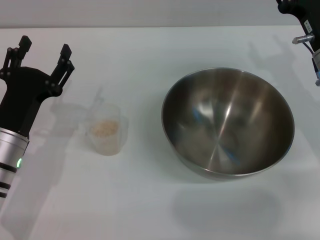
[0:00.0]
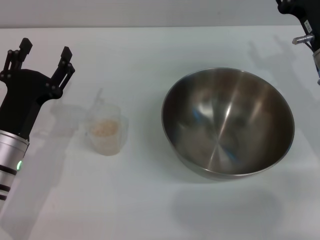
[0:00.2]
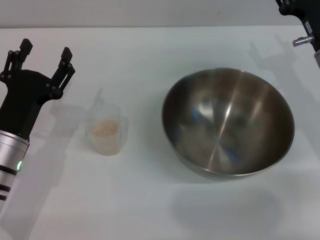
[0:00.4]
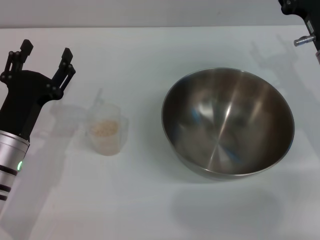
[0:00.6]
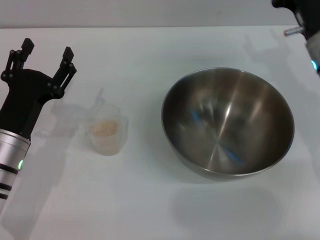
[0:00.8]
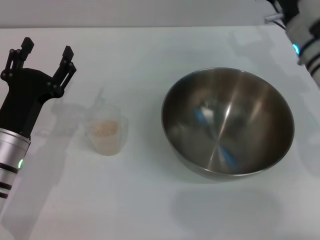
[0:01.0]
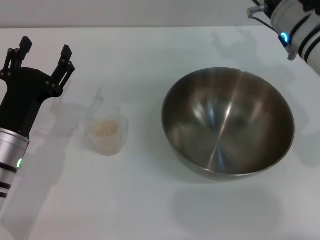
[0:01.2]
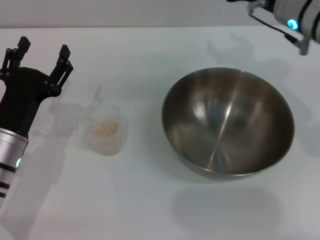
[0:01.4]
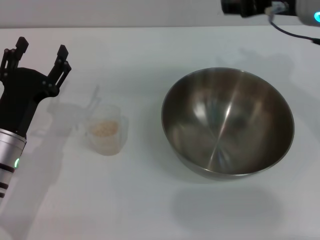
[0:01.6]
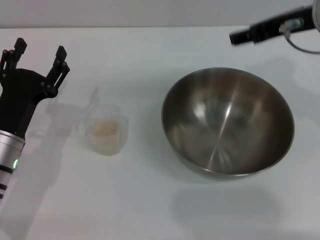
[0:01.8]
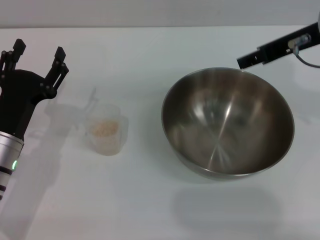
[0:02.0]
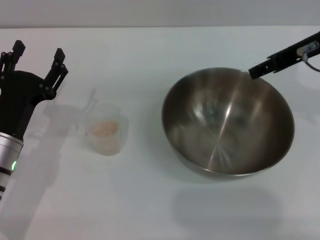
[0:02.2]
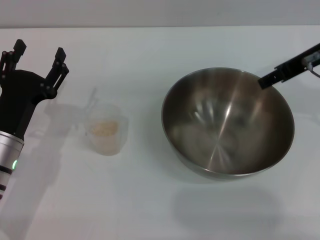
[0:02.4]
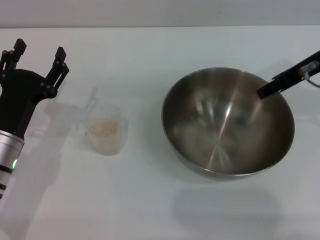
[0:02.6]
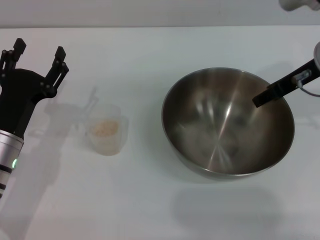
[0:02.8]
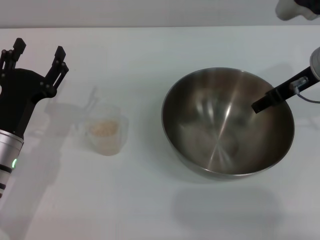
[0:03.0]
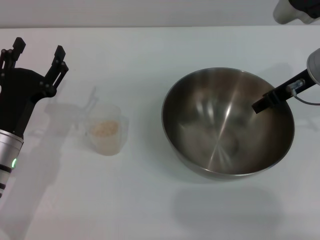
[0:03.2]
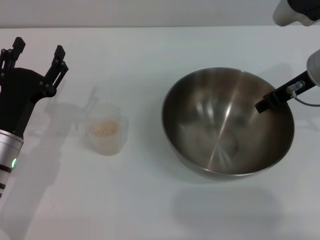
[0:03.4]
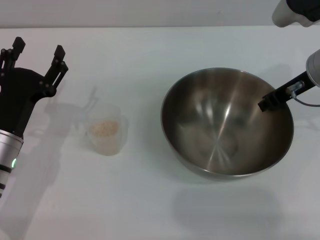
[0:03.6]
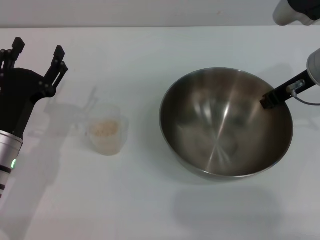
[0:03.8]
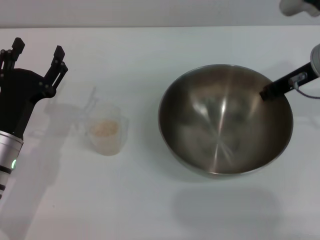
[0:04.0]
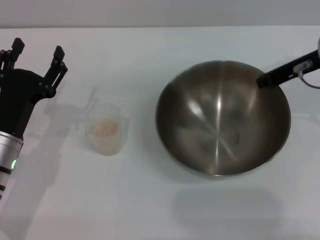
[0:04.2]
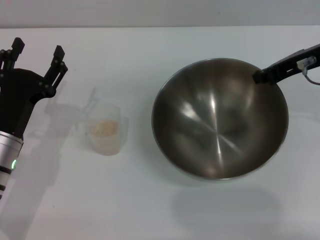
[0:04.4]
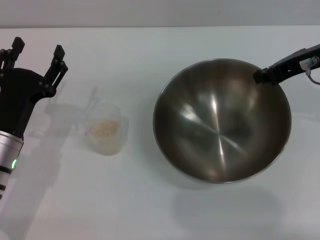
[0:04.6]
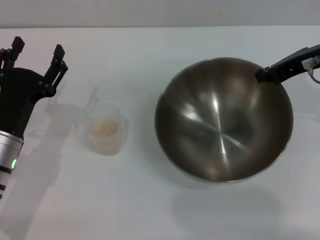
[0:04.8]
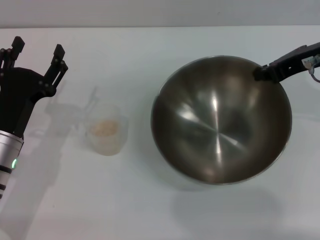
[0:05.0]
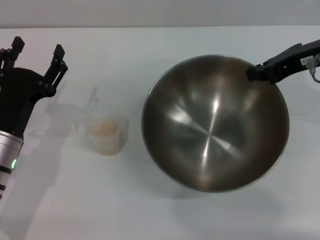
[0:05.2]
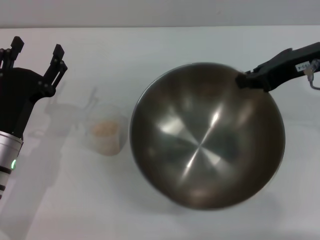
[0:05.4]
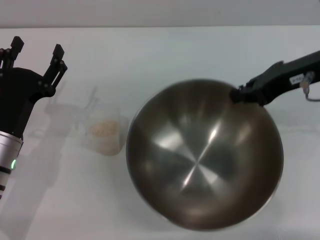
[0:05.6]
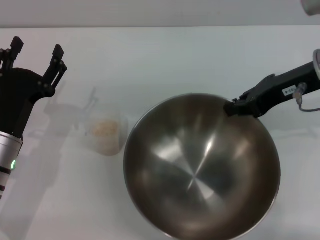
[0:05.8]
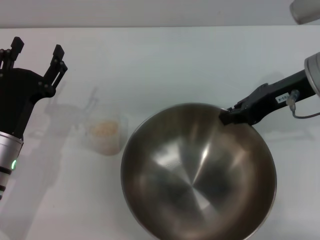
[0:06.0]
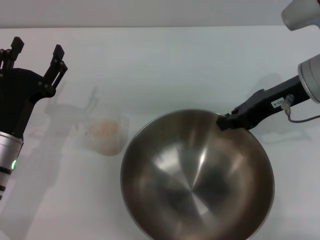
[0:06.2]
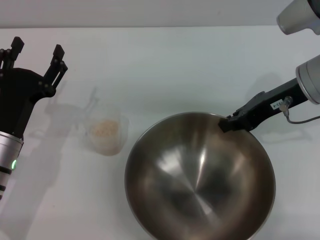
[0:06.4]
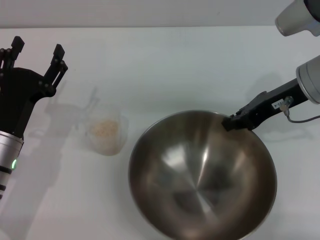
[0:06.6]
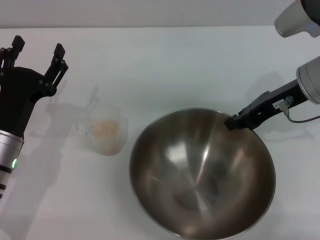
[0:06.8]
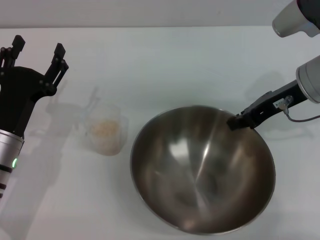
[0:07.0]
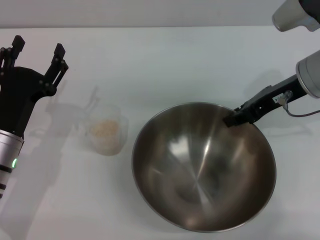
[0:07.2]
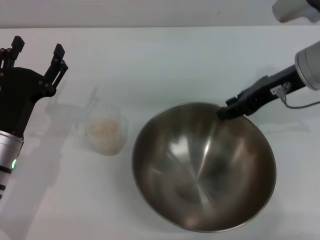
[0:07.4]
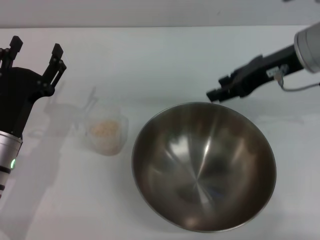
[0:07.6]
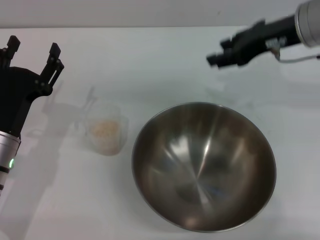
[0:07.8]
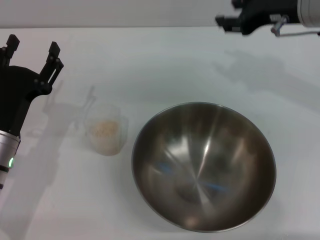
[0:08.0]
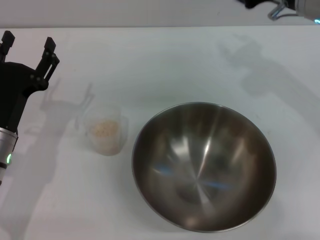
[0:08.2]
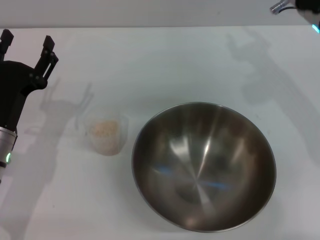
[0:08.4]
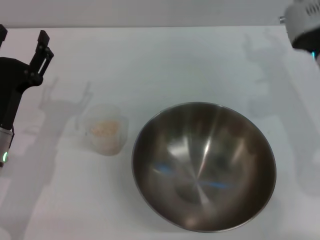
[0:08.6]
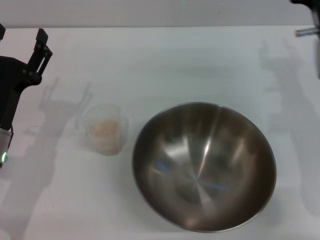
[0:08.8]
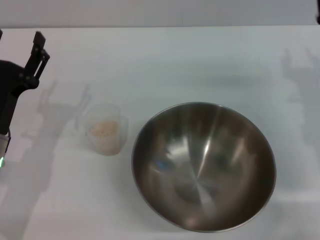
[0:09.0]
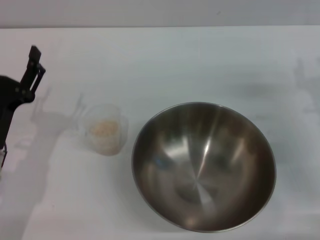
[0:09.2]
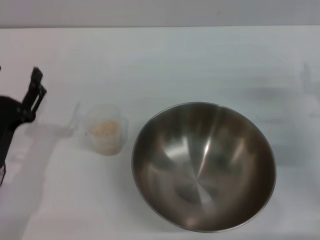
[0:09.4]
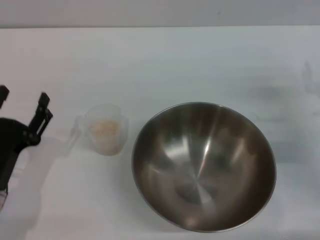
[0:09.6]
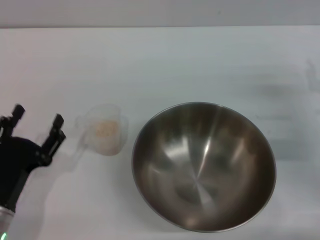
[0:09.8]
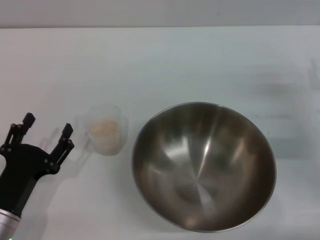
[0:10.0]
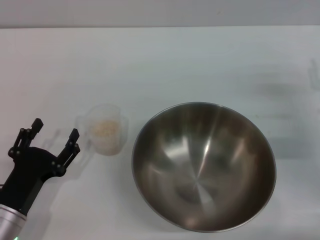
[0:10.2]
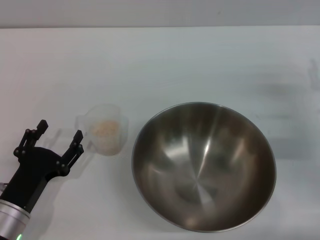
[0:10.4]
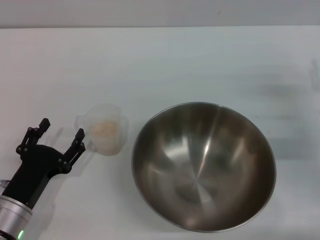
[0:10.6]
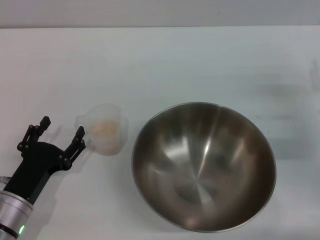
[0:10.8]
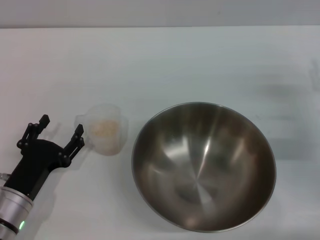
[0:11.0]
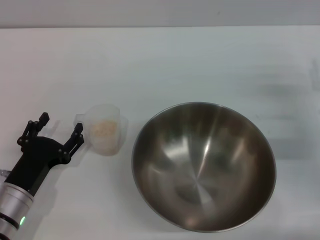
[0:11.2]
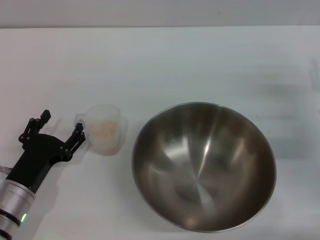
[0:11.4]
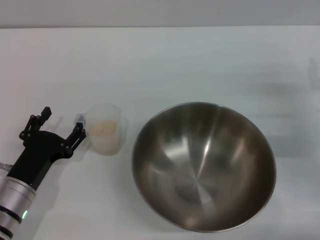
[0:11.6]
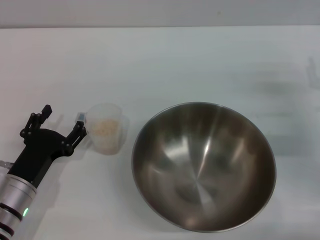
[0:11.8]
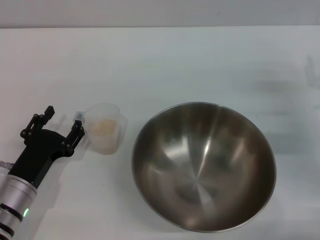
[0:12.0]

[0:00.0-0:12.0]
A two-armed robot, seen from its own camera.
Task of the whole recording: Place the bowl in the middle of the table with one hand and pour the rice from the grain cup into it with the other hand.
Step, 0.0 to 4.6 s: Pick up the bowl with the right gripper.
Step, 5.0 to 7.8 s: Place the bowl in the center of view with the right gripper.
0.0 to 1.6 s: The right gripper goes approximately 15 cm upward.
1.6 to 3.0 s: The right gripper travels downward by roughly 5 cm.
3.0 to 4.4 s: The right gripper closes up.
6.0 to 7.6 s: The right gripper opens up.
7.6 to 9.0 s: The right gripper heads downward, to the right and backward, covering about 15 cm.
9.0 to 10.4 s: The right gripper shifts roughly 5 cm to the right, while the left gripper goes approximately 10 cm backward and downward.
10.4 to 12.0 s: The grippers make only small movements.

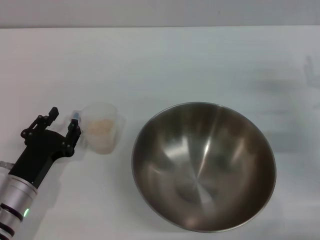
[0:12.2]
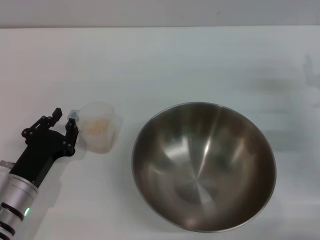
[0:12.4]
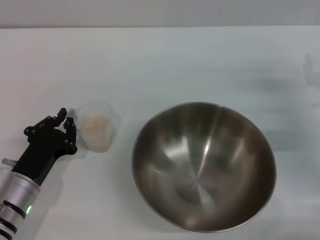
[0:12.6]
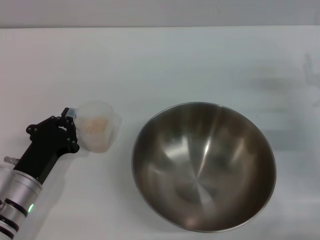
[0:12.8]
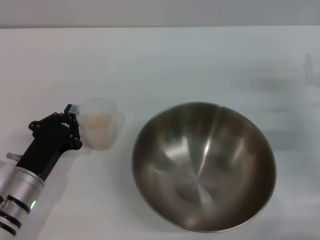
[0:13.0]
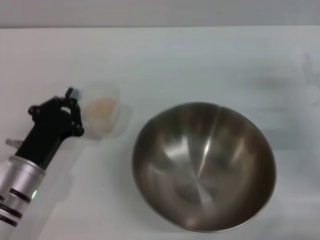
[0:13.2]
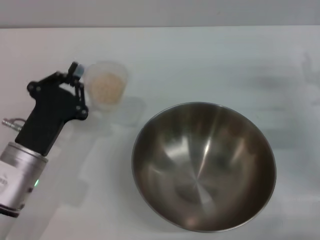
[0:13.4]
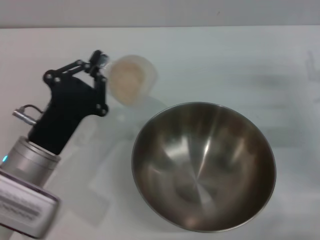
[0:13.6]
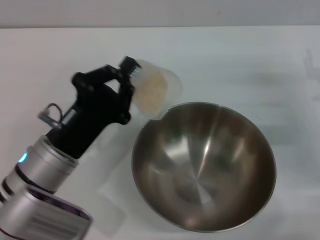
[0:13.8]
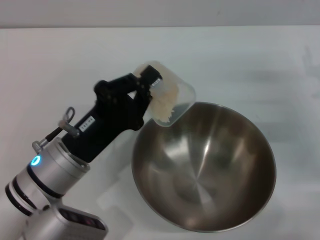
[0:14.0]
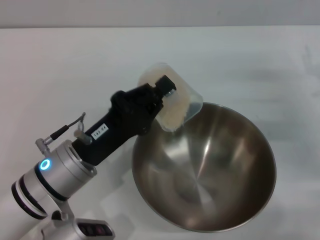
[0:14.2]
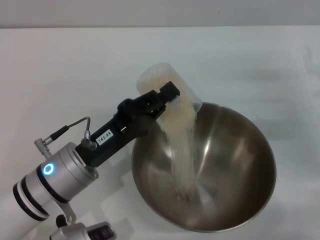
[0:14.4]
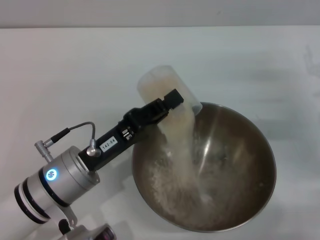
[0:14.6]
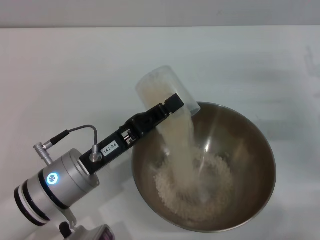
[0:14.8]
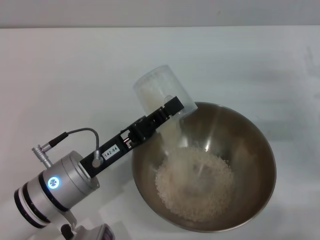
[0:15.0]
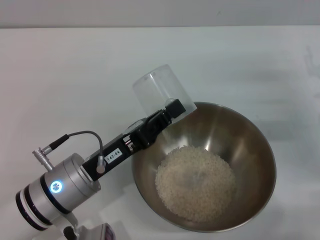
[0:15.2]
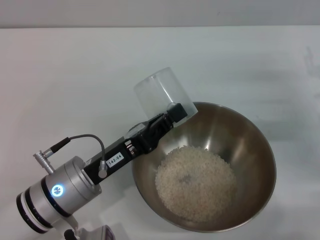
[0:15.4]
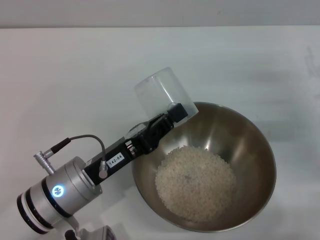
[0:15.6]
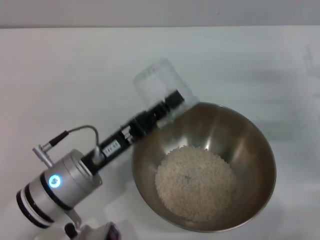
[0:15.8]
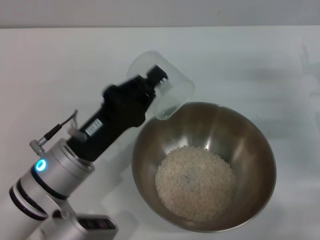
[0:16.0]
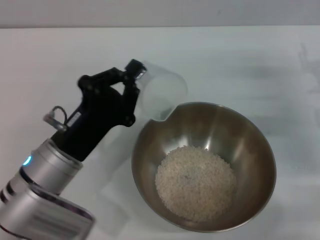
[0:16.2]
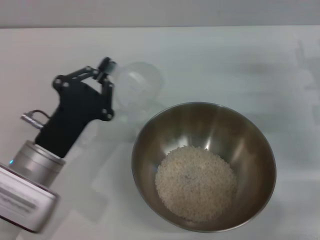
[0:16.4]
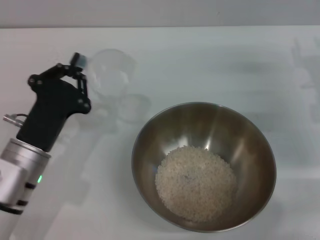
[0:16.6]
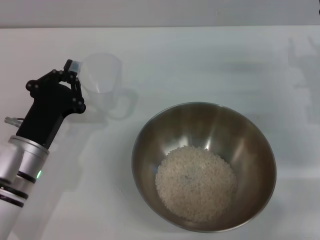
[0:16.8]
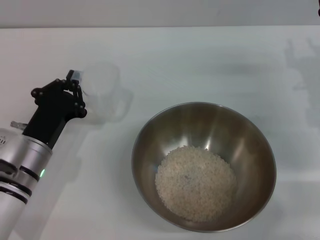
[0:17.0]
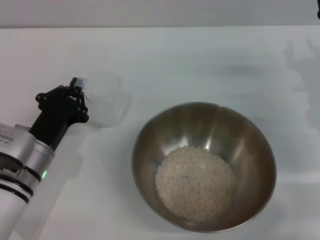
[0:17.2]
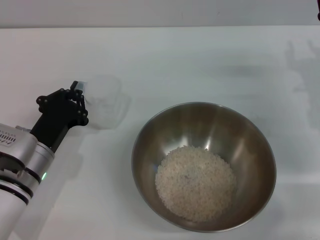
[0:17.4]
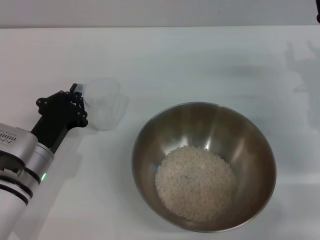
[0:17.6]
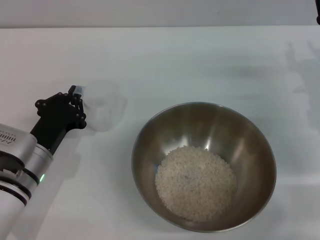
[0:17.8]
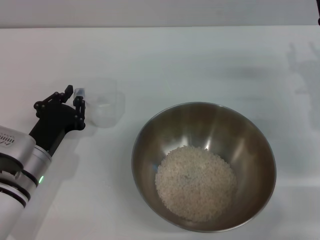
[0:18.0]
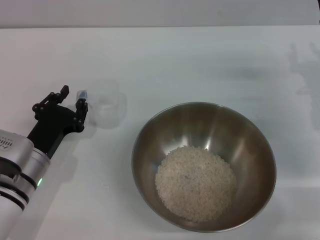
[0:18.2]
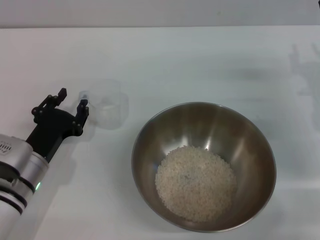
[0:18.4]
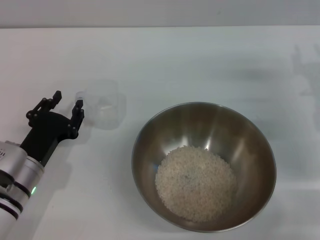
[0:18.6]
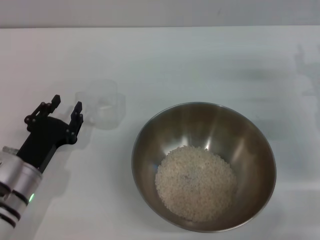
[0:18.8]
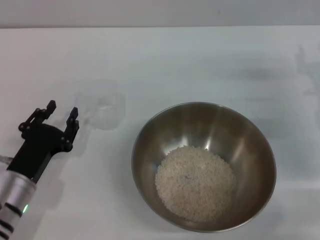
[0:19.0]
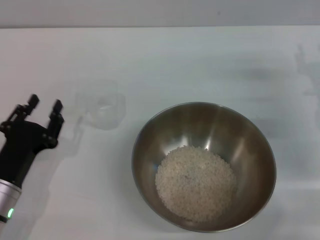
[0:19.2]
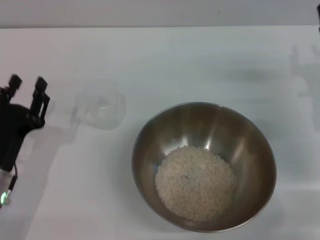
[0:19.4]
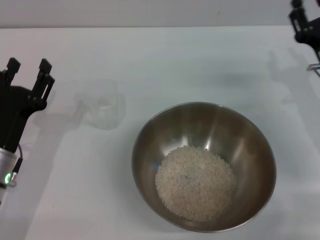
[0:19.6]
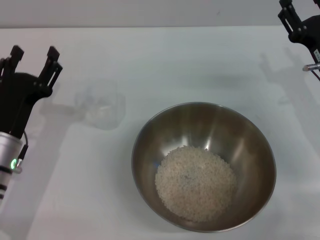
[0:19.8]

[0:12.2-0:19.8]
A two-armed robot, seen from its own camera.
Task of the whole recording: Place the bowl in the middle of the table with one hand and pour the rice from the grain cup into it with the other hand.
Step, 13.4 to 15.4 s: Pour the rice from the cup into the bowl with the left gripper.
Step, 15.6 to 18.8 s: Place the cup on the table with the left gripper.
12.2 to 13.8 s: The left gripper shifts approximately 10 cm upward and to the right, and closes up.
15.2 to 16.8 s: The left gripper moves to the left, some 5 cm.
16.8 to 18.2 s: The grippers make only small movements.
18.2 to 19.8 s: The left gripper opens its fingers.

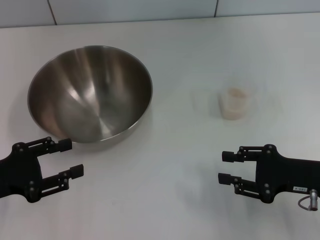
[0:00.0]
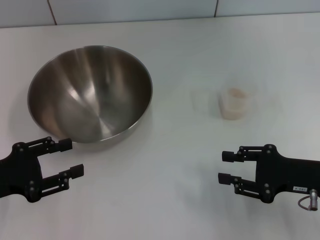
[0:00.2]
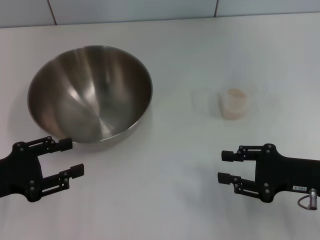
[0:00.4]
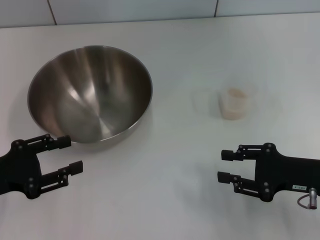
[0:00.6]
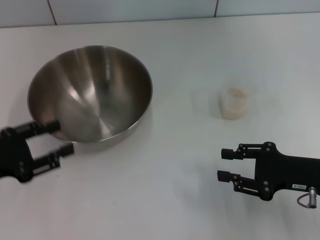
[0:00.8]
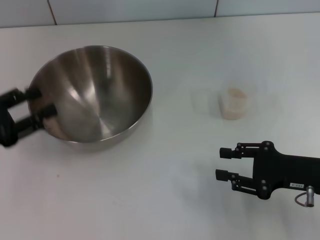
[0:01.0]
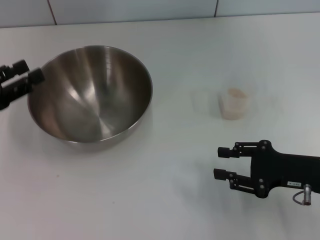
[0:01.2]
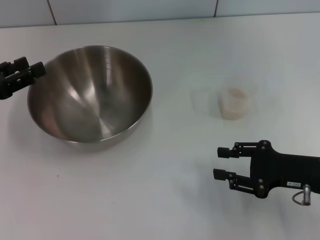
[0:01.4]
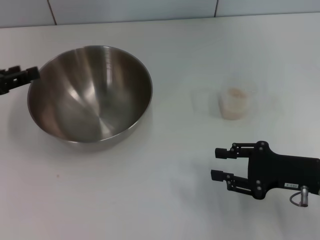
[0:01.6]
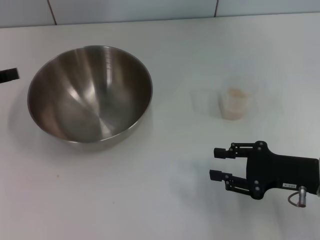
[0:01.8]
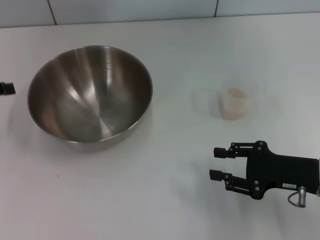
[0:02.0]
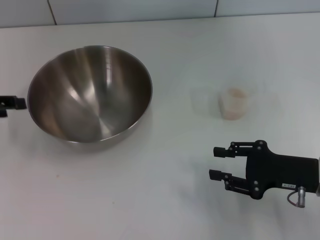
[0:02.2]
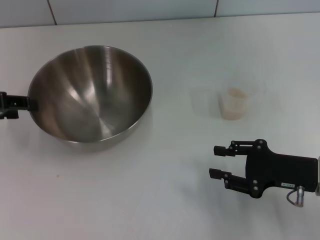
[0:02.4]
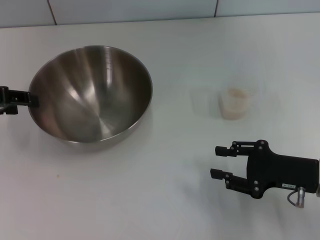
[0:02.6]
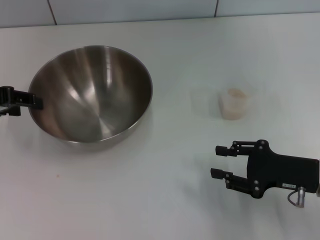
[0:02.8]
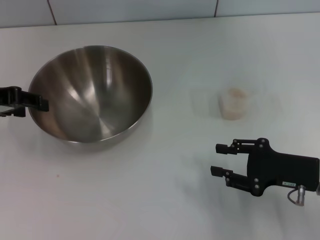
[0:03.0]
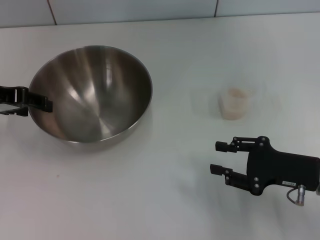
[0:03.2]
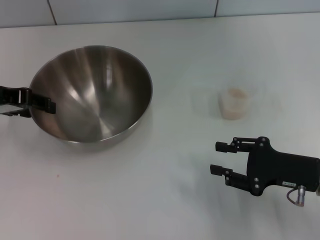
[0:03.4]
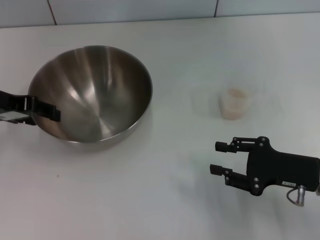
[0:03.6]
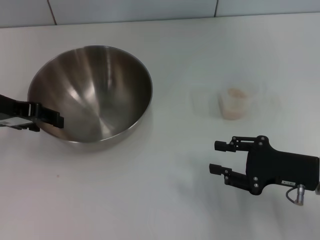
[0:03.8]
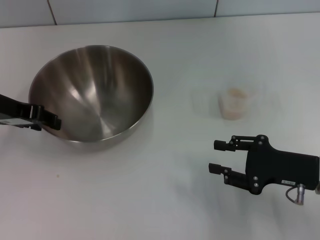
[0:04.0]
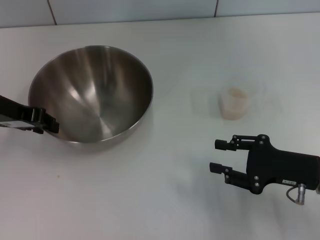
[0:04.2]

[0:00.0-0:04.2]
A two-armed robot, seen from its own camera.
Task of the whole recording: Place the bowl in the middle of the table with one hand and pour the rice from the grain cup into it with the other hand.
0.0 to 1.4 s: The left gripper moves forward, about 10 cm.
1.4 to 2.8 s: The left gripper shifts about 5 cm upward.
2.8 to 4.2 s: The left gripper shifts by approximately 5 cm.
